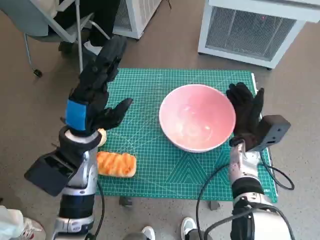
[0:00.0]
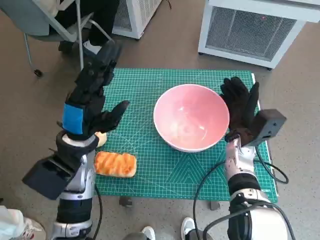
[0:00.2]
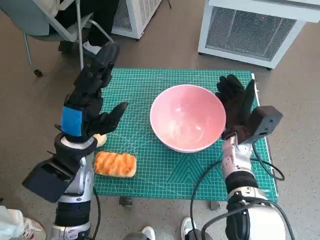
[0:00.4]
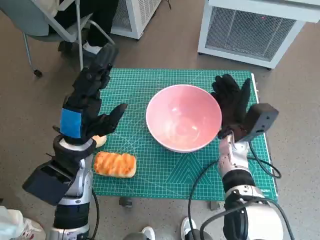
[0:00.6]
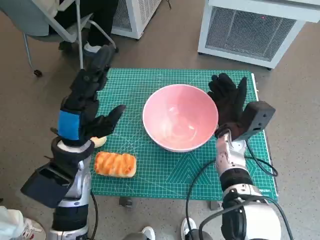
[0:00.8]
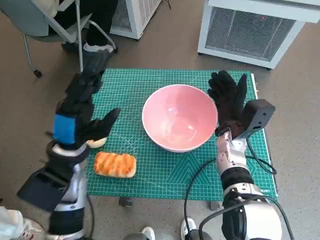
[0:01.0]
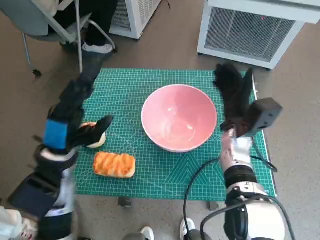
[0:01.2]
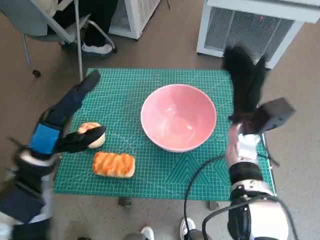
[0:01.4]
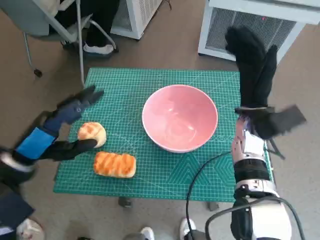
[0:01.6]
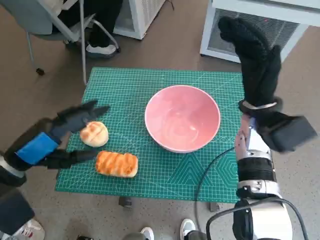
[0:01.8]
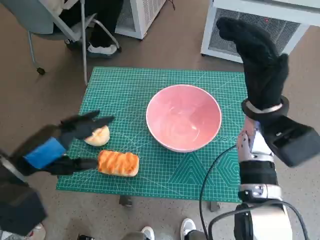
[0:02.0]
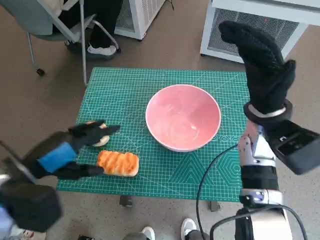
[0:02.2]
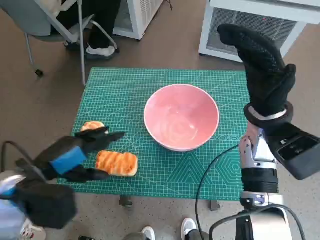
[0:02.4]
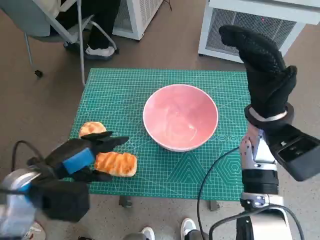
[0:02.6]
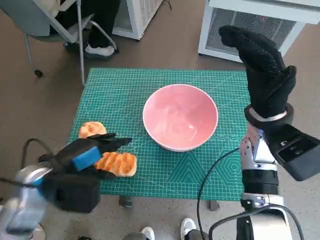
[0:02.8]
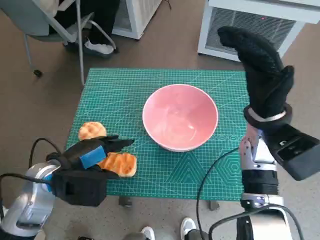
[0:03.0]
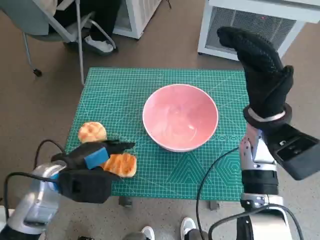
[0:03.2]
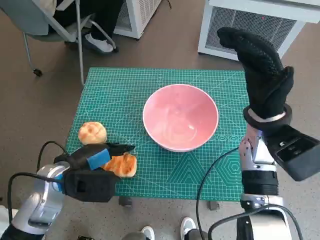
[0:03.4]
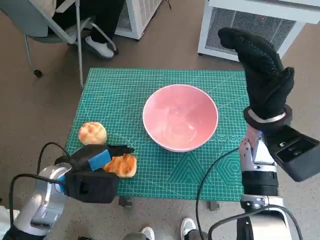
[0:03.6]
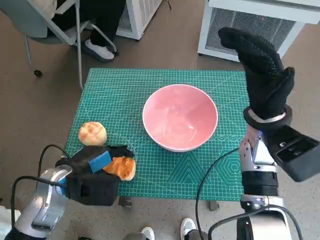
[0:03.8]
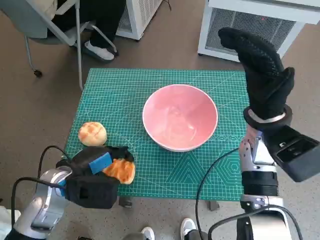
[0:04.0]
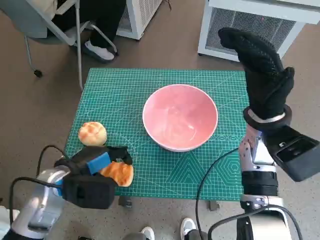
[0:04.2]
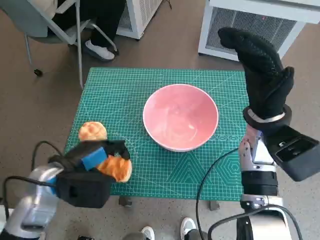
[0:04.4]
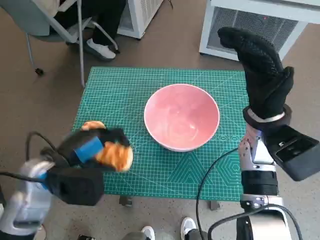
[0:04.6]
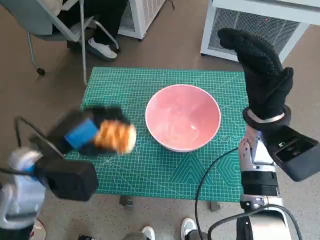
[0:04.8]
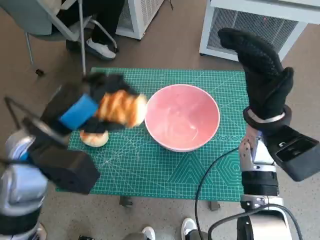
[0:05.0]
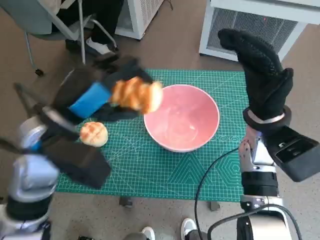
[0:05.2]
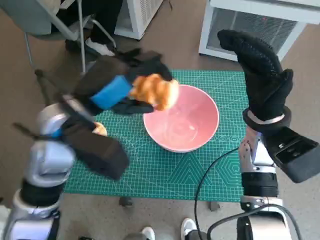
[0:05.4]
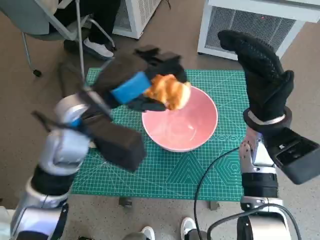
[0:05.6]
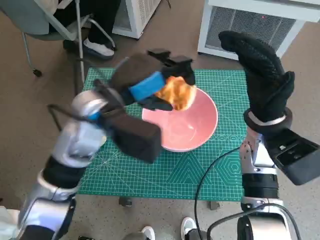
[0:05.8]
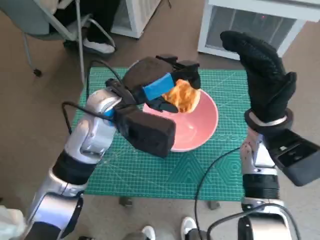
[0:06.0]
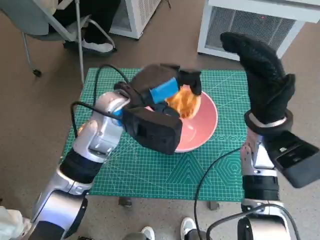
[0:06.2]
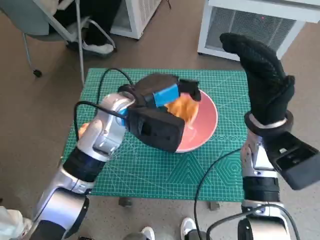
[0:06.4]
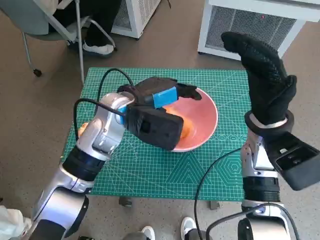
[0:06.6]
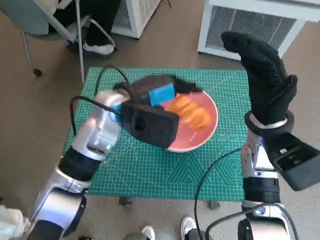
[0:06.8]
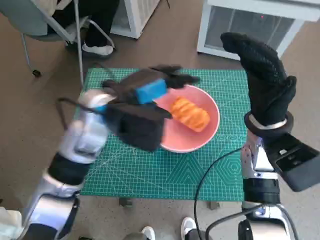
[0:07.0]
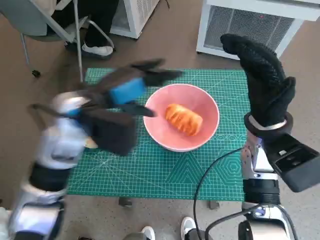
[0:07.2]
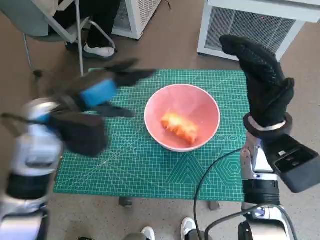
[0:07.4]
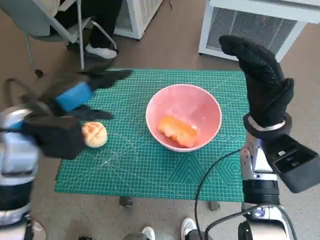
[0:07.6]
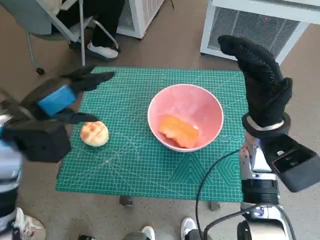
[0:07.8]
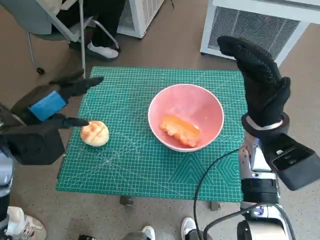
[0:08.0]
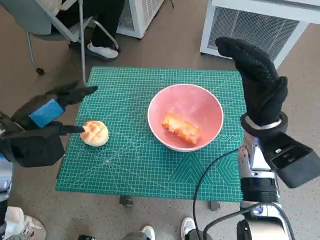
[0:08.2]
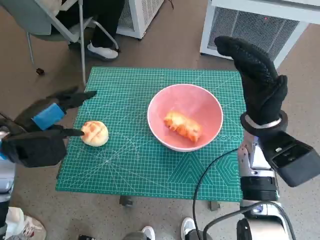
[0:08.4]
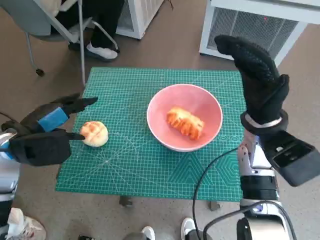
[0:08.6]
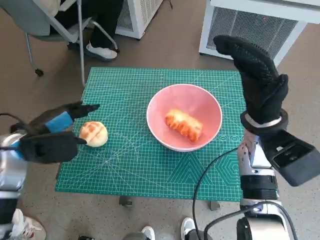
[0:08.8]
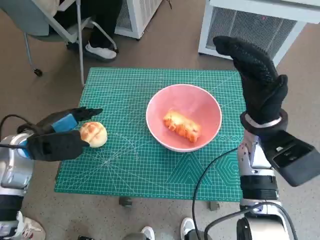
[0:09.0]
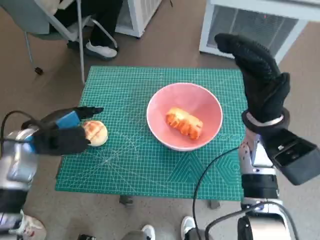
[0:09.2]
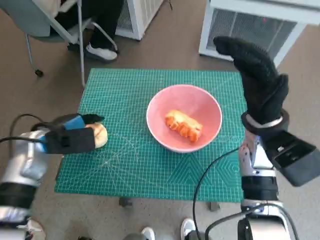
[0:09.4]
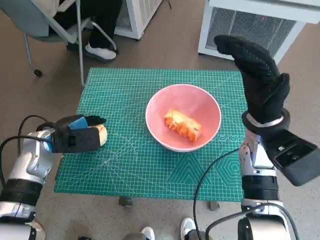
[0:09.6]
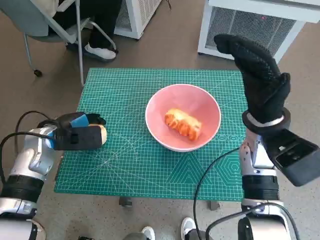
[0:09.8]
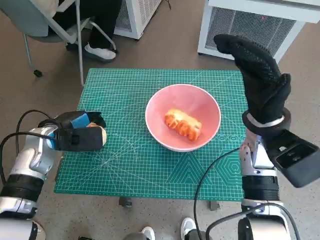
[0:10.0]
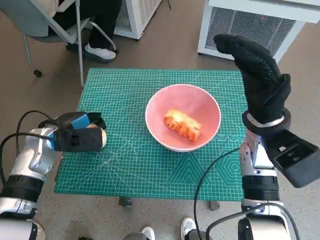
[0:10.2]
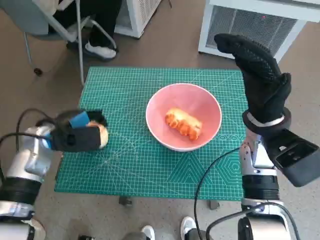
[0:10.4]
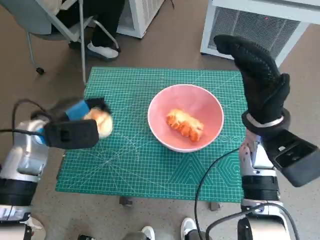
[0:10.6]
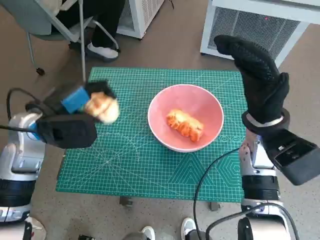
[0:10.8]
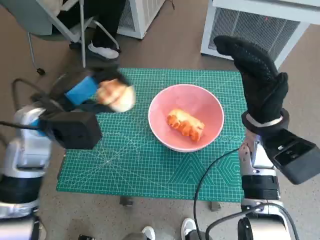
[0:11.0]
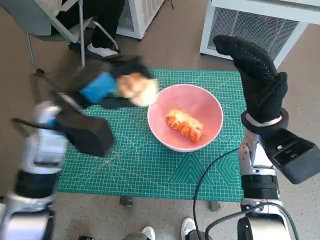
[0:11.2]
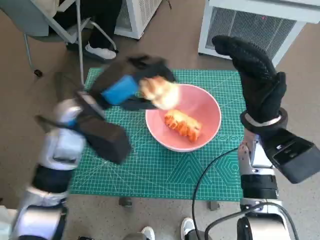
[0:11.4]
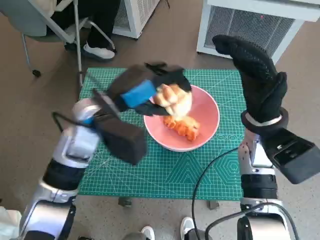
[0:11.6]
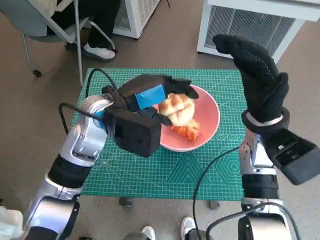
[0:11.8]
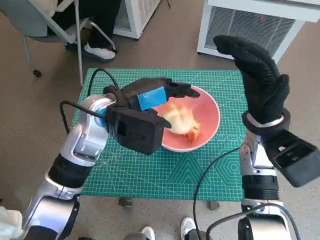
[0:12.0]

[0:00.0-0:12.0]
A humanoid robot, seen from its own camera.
Task of the whole recording: Push the bowl to the center of the table and put the bread into the bowl.
Step, 0:01.4 to 0:03.8: Grasp the long bread with left hand.
Step, 0:04.0 to 0:07.0: Place the long bread in pink bowl with left hand.
Step, 0:07.2 to 0:10.2: Grasp the round bread with left hand.
0:00.0 to 0:01.6: The right hand is displaced upward by about 10 cm, while the left hand shifts about 10 cm to the left and backward.
0:01.6 to 0:03.0: The left hand ends up roughly 5 cm from where it was; the right hand changes place by roughly 5 cm.
0:03.0 to 0:04.4: The hands move only a little.
0:04.4 to 0:06.0: The left hand moves to the right, upward and forward, approximately 20 cm.
0:06.0 to 0:07.6: The left hand is displaced to the left by about 10 cm.
0:07.6 to 0:09.0: The left hand heads downward and to the left, covering roughly 10 cm.
0:09.0 to 0:10.4: The hands make only small movements.
0:10.4 to 0:12.0: The left hand goes roughly 15 cm to the right and upward.
